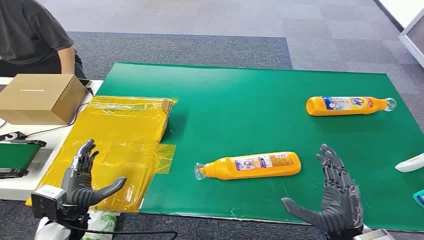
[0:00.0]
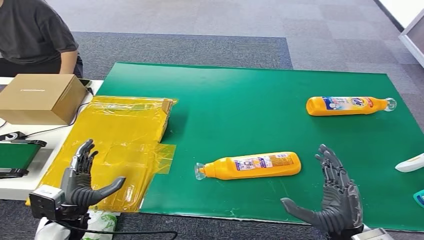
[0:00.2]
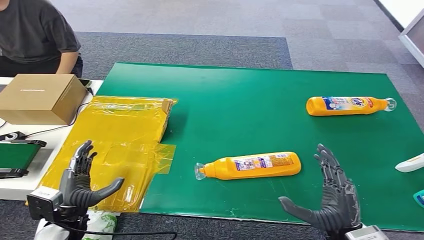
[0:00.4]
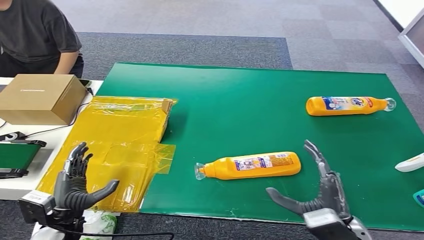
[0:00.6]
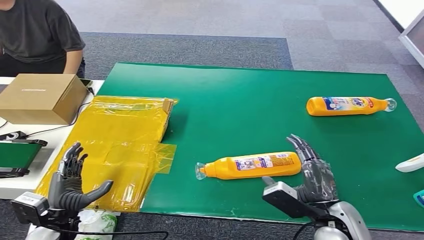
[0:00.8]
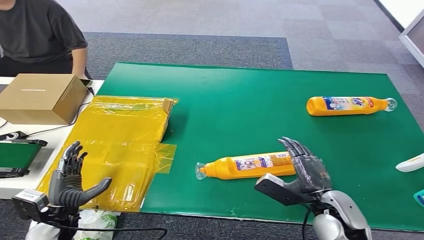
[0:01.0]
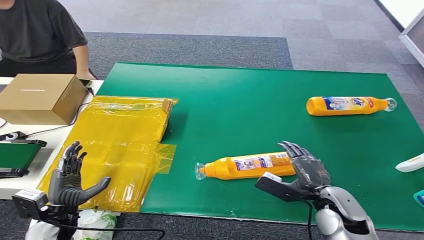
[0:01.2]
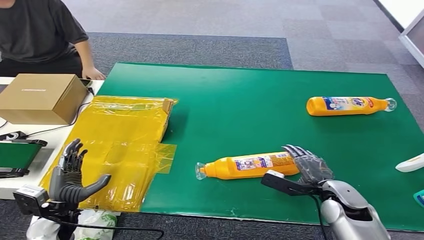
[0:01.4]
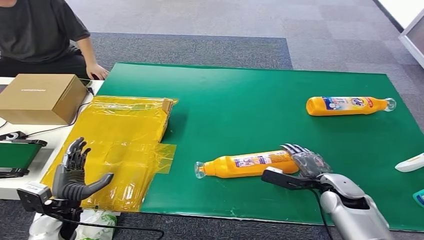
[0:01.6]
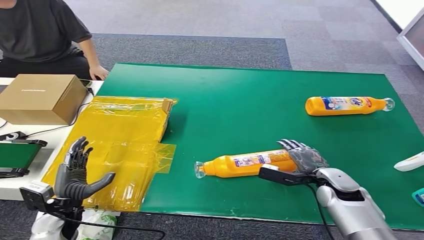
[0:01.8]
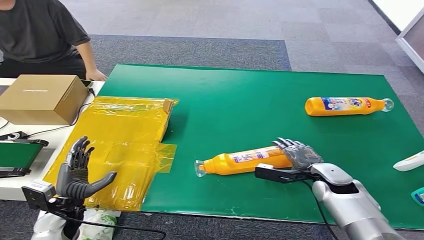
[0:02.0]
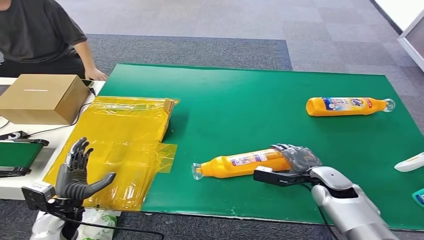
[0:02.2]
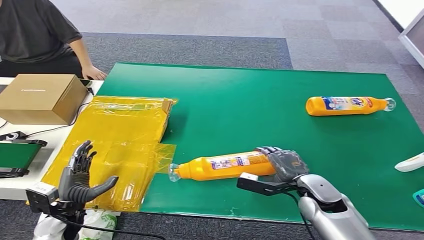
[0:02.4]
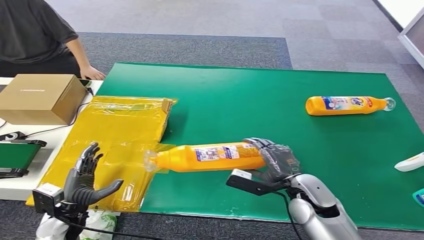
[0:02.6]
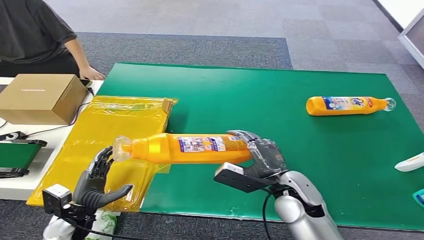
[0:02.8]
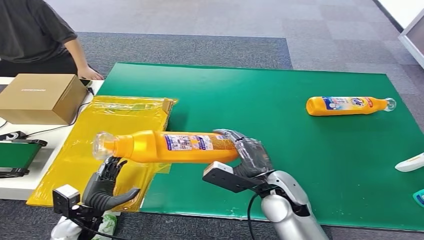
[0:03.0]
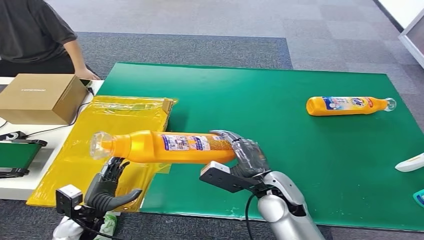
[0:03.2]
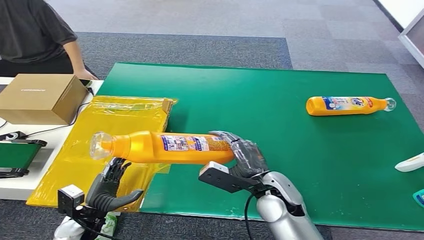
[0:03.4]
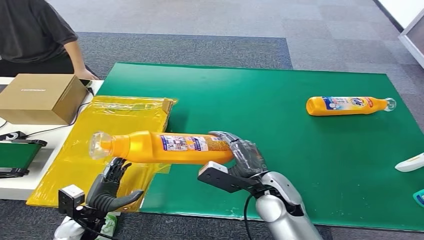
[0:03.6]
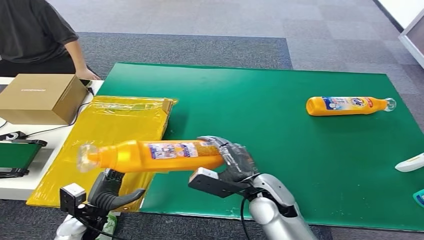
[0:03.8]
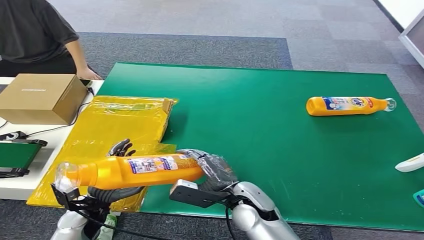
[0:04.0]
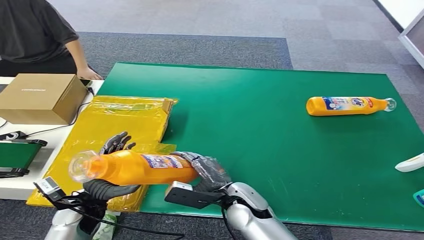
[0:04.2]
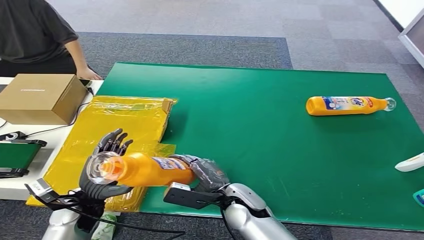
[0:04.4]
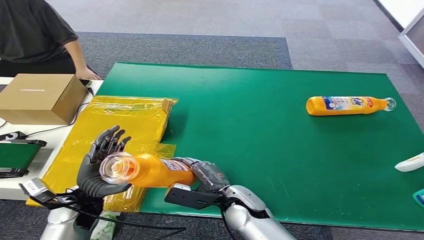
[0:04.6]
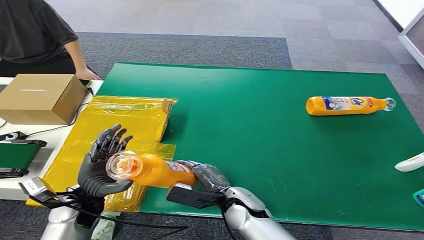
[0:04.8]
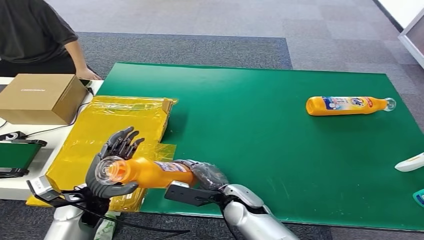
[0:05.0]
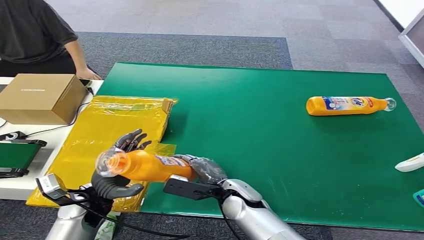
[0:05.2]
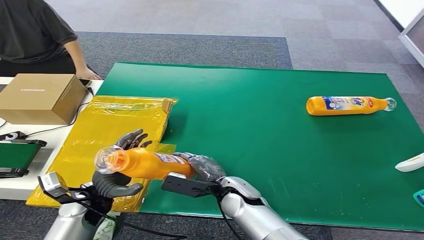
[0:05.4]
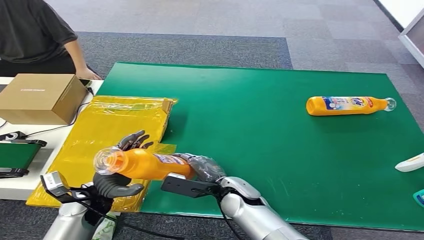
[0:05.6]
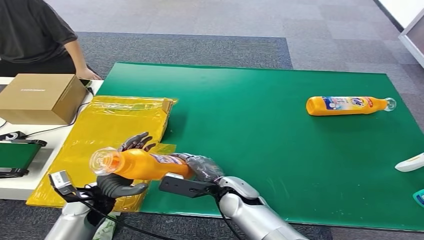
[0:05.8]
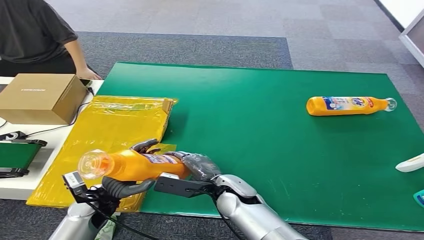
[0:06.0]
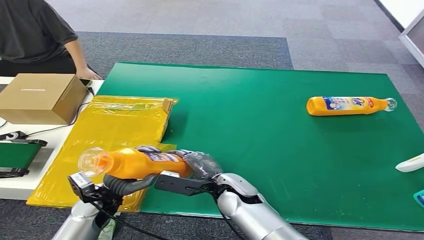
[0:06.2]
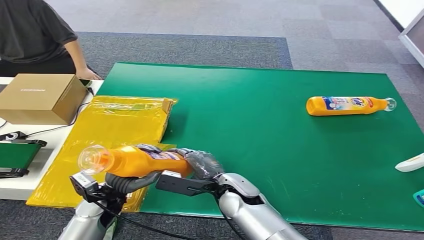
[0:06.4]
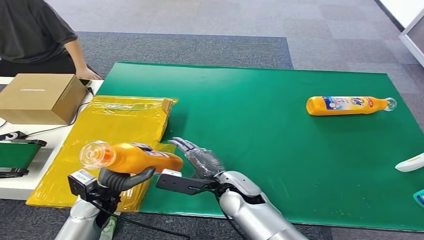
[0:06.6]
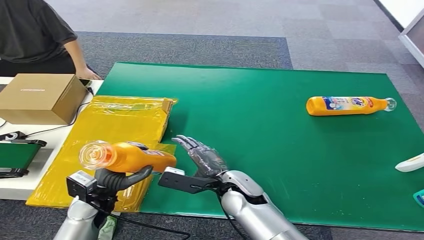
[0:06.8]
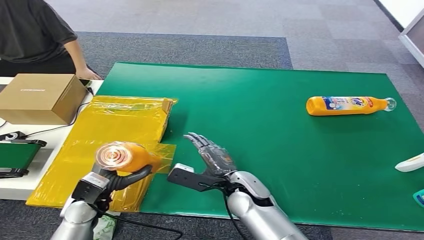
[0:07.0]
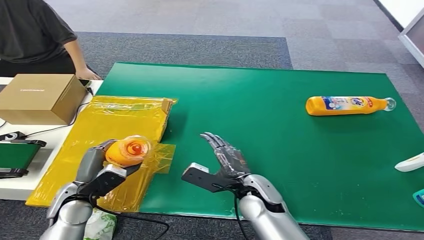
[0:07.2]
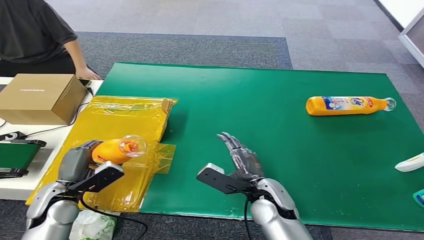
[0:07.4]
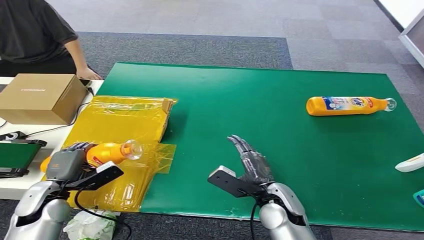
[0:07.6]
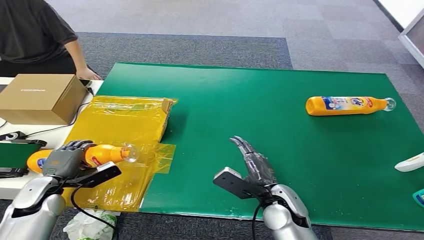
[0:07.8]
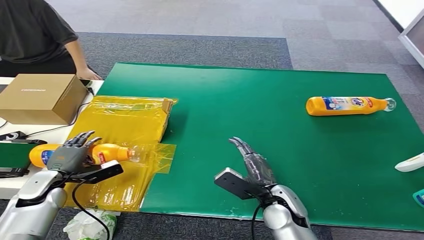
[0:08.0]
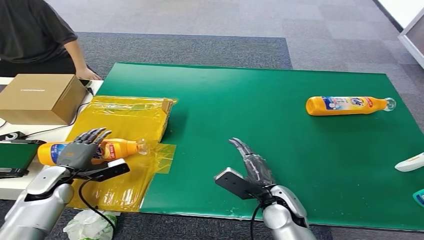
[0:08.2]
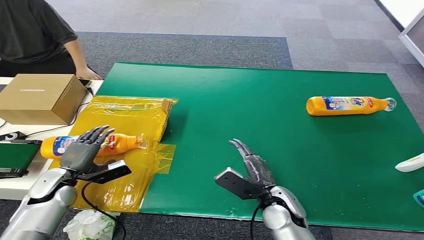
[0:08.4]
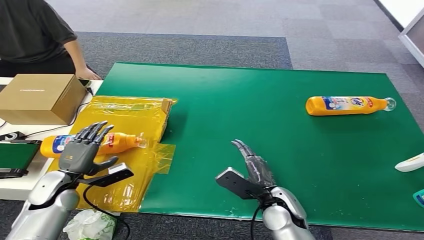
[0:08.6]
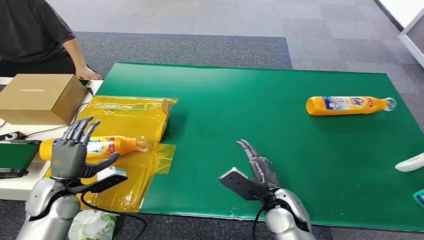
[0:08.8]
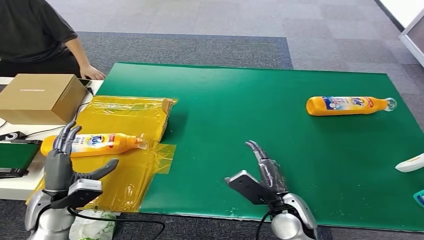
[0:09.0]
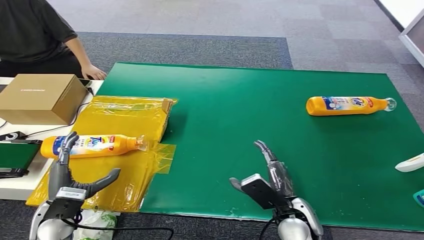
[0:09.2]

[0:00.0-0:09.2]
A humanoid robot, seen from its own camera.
Step, 0:00.0 to 0:03.0: Pick up the bottle from the table.
Step, 0:03.4 to 0:09.2: Turn the bottle to the front side.
0:03.0 to 0:04.6: The left hand travels upward by approximately 5 cm, while the right hand moves to the left and downward, roughly 10 cm.
0:04.6 to 0:06.2: There are only small adjustments of the hands.
0:06.2 to 0:07.6: The left hand is displaced to the left by approximately 10 cm. Meanwhile the right hand moves to the right, approximately 10 cm.
0:07.6 to 0:09.2: The right hand shifts by roughly 5 cm; the left hand ends up about 5 cm from where it was.
